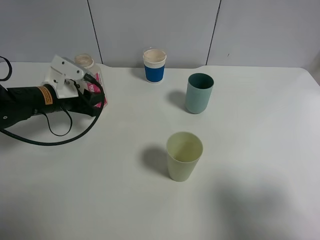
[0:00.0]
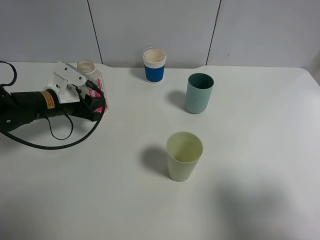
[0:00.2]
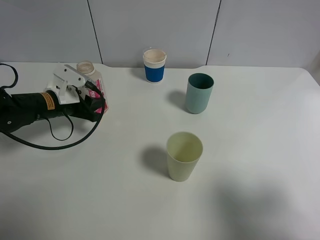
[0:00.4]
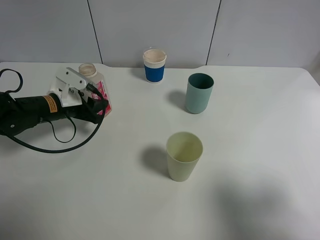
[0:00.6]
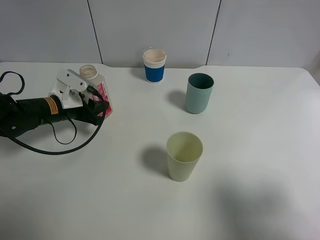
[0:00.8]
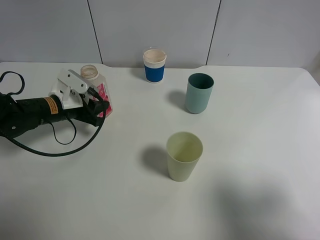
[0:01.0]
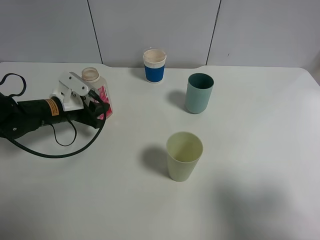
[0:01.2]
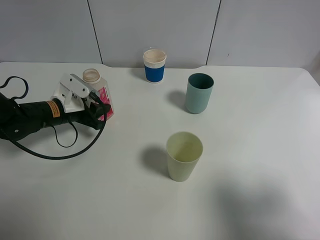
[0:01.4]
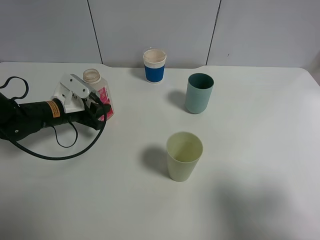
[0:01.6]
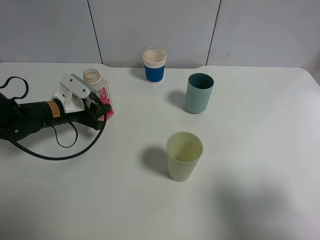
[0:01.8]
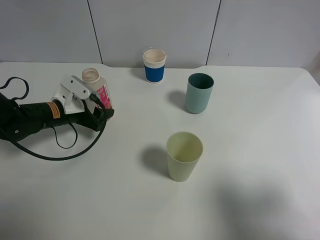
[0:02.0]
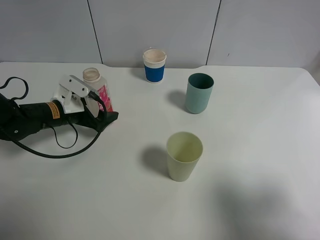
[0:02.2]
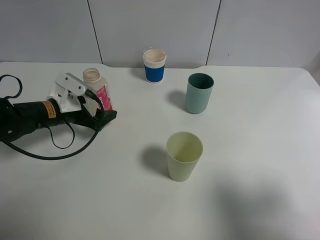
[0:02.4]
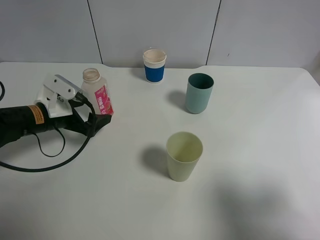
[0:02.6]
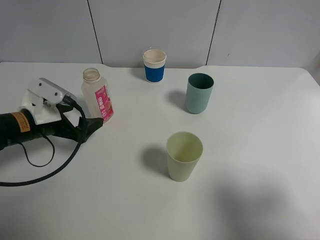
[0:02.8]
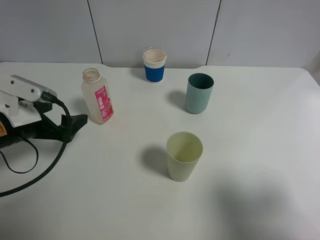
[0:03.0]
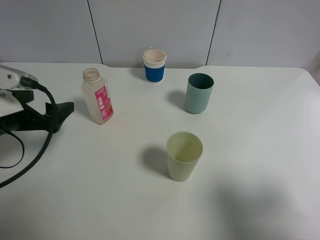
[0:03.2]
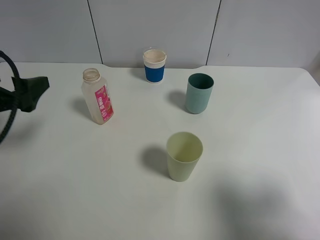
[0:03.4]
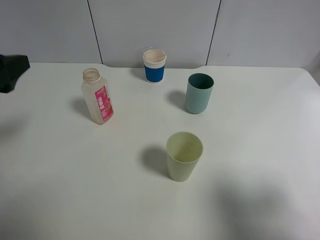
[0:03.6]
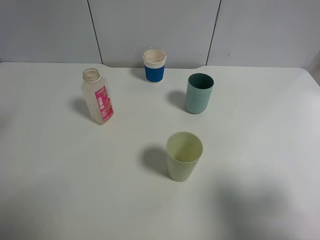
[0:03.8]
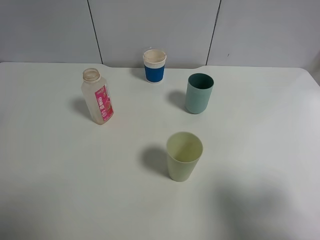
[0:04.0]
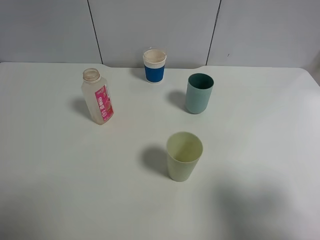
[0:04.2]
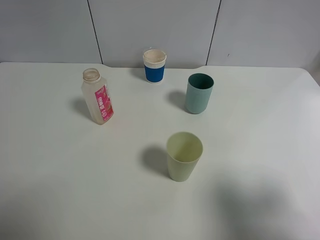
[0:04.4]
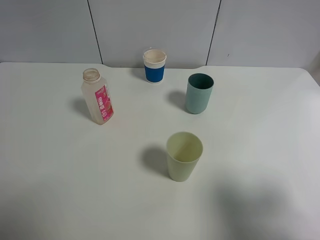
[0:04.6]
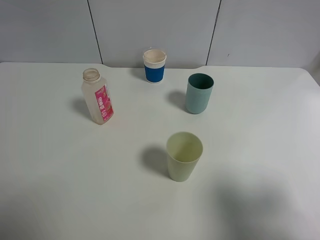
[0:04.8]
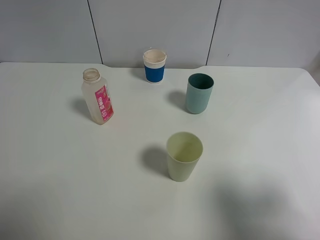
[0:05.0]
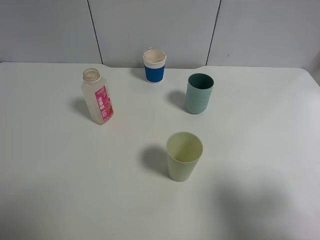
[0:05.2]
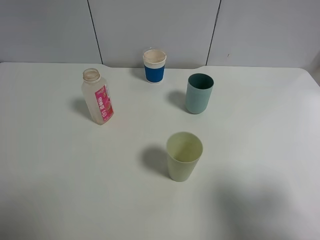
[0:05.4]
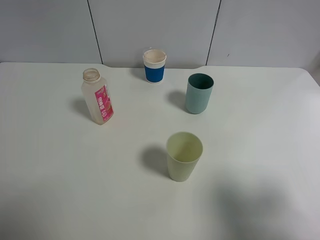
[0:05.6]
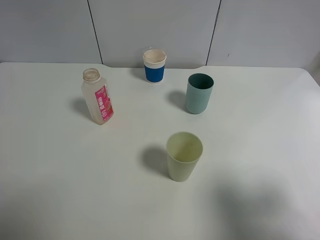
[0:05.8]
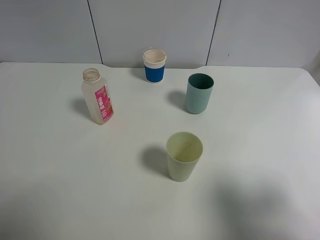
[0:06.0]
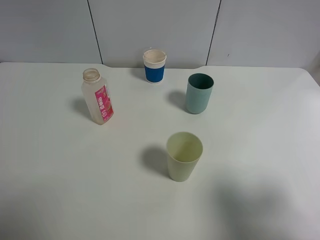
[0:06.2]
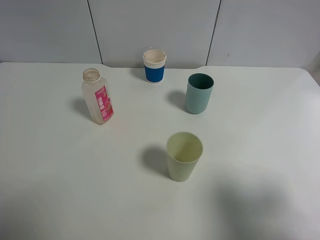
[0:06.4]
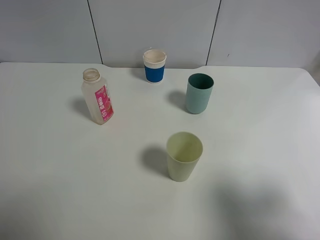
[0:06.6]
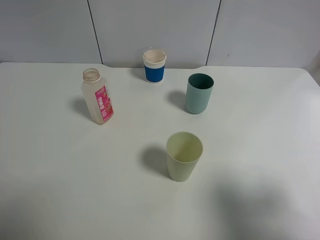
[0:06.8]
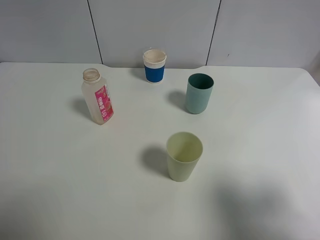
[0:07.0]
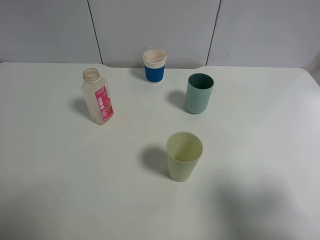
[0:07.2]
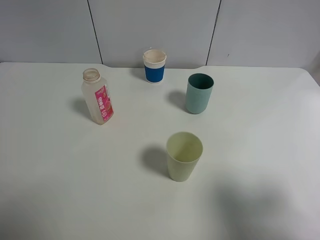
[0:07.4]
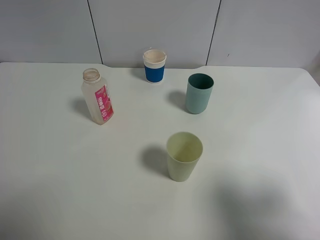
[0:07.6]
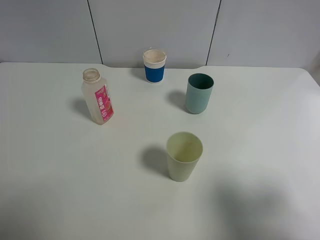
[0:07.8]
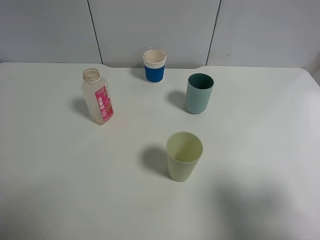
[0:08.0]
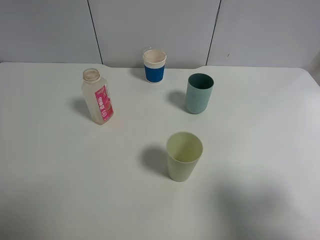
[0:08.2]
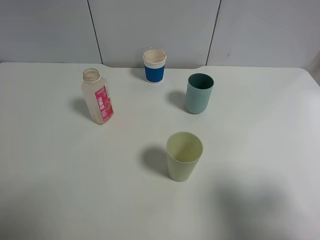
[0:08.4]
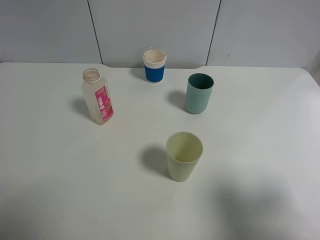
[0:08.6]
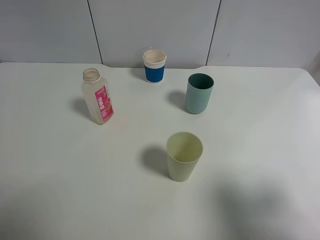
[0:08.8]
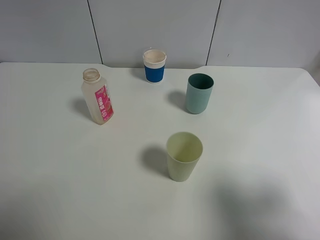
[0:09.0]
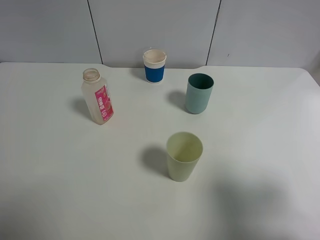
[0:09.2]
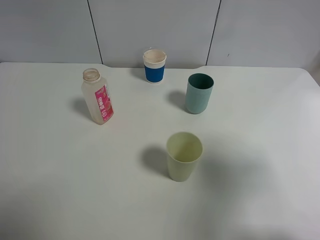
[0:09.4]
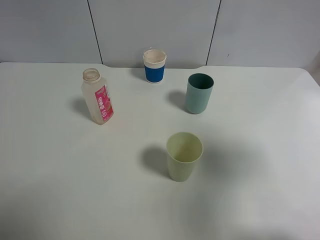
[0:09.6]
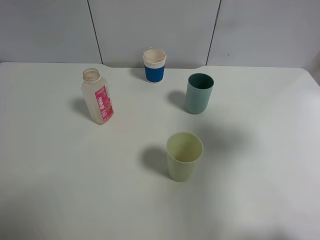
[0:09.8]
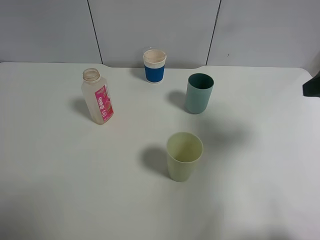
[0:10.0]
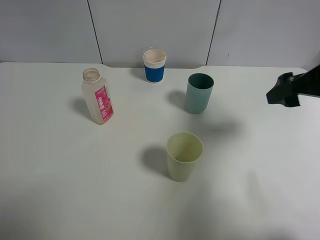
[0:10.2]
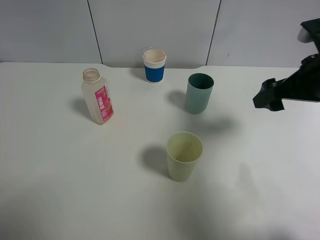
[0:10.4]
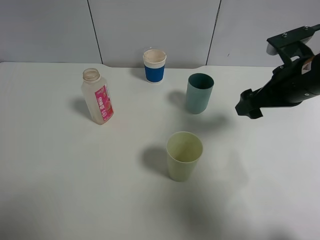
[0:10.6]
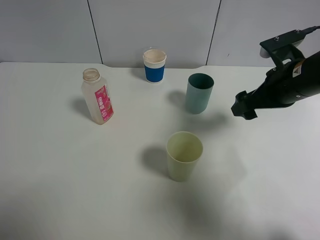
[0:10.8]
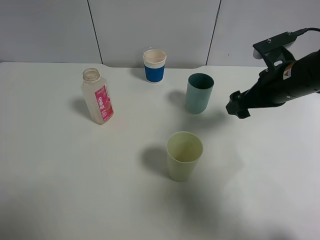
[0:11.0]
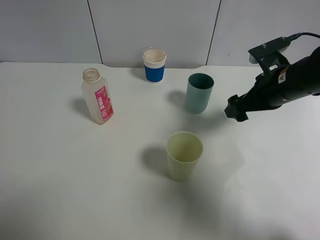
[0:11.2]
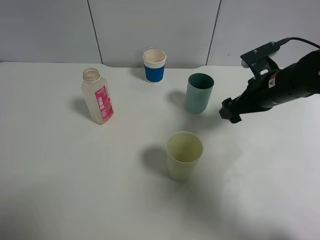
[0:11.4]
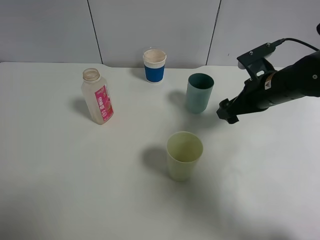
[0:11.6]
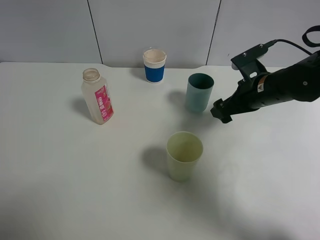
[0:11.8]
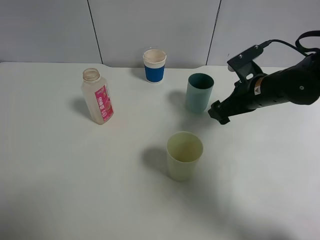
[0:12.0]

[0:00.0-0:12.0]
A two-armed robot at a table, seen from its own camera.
Task of the whole recording: use a clamp to hold the bottle of the drink, pour the beverage into a random cup, then clamp the cup containing the drink and pour the drink into another random cup.
Step, 0:00.0 to 0:02.0: Place the drink bottle on the table with left gripper.
0:00.0 to 0:01.6: The grippers make only small movements.
0:01.6 to 0:03.0: The left gripper goes some 15 cm backward and upward, and opens up.
0:03.0 to 0:04.4: The left gripper moves upward and backward, some 25 cm.
0:06.0 to 0:09.0: Both grippers stay about where they are.
0:09.0 to 0:10.4: The right gripper shifts about 25 cm forward.
0:10.4 to 0:12.0: The right gripper heads downward and forward, covering about 10 cm.

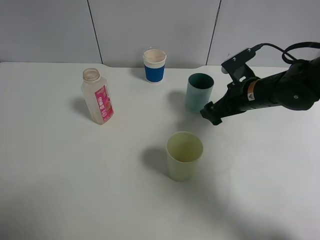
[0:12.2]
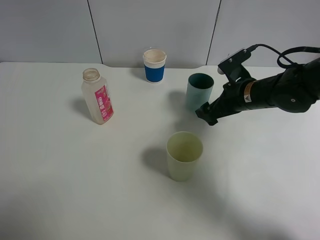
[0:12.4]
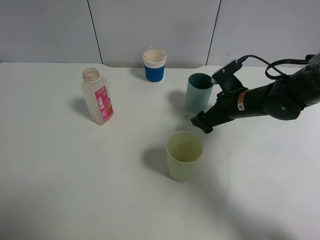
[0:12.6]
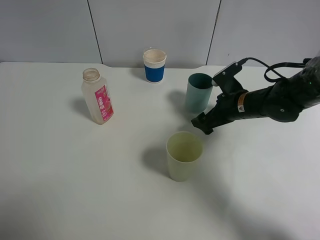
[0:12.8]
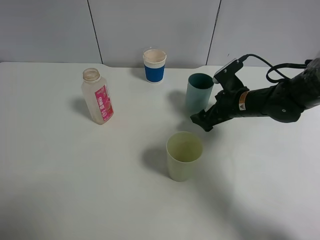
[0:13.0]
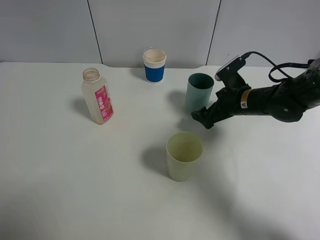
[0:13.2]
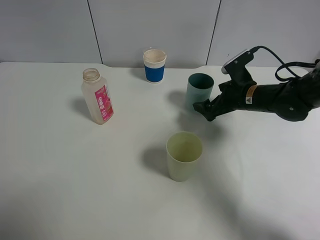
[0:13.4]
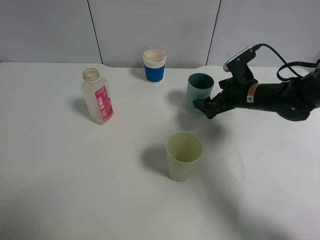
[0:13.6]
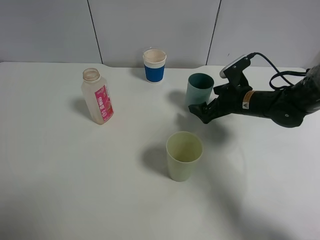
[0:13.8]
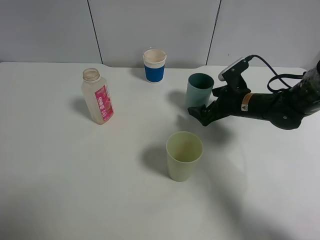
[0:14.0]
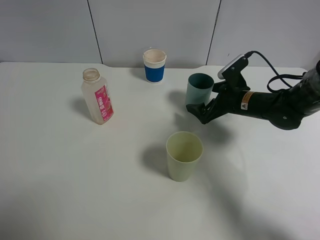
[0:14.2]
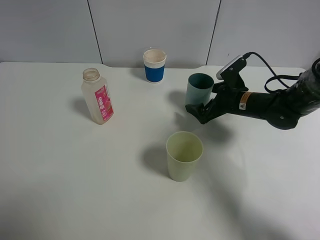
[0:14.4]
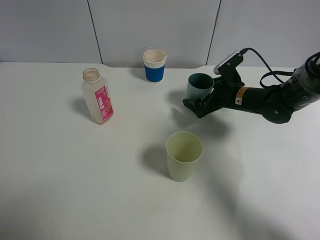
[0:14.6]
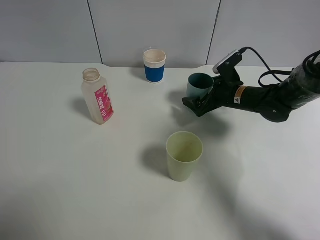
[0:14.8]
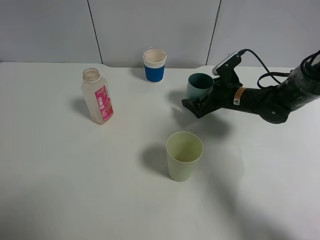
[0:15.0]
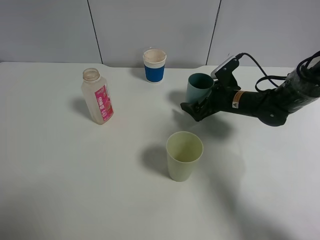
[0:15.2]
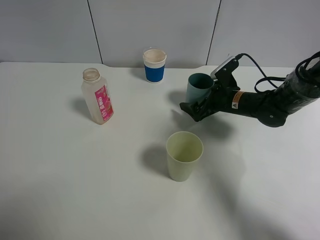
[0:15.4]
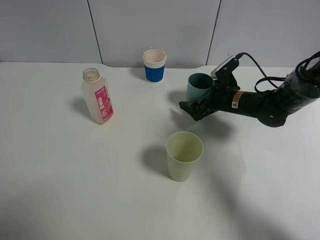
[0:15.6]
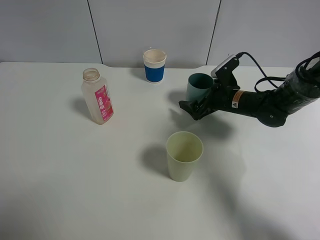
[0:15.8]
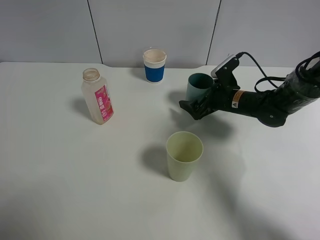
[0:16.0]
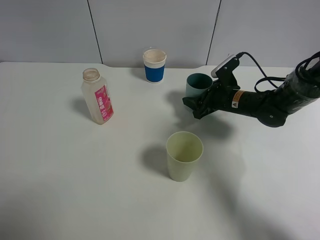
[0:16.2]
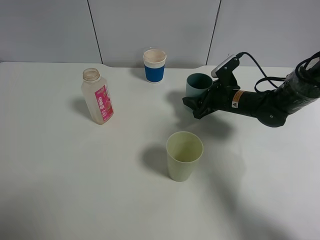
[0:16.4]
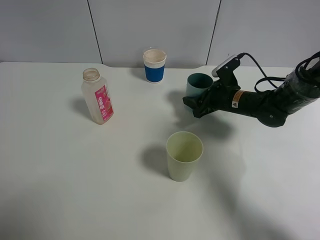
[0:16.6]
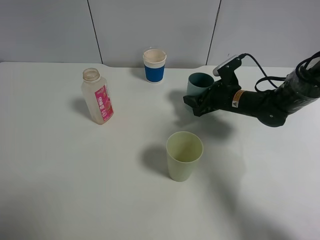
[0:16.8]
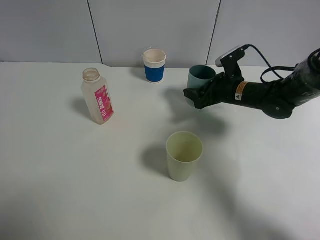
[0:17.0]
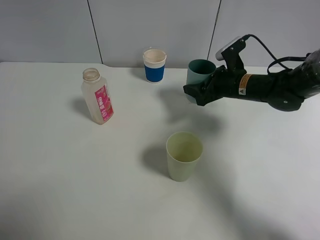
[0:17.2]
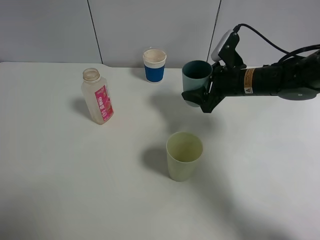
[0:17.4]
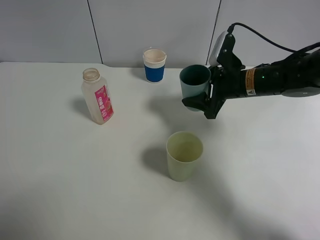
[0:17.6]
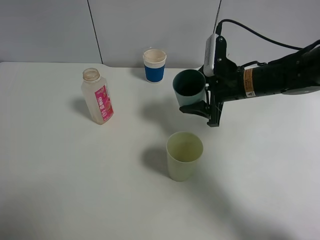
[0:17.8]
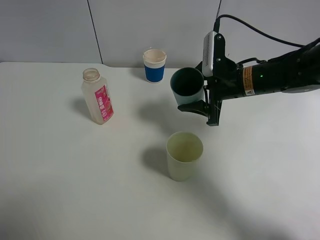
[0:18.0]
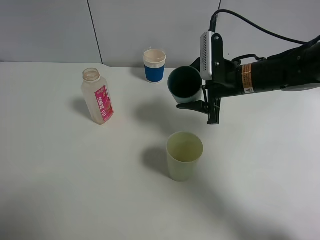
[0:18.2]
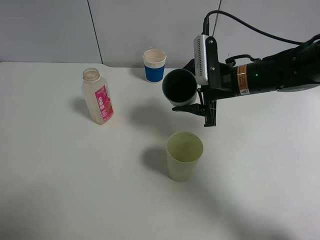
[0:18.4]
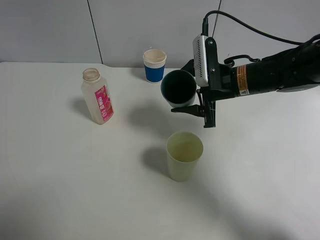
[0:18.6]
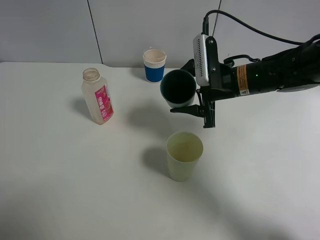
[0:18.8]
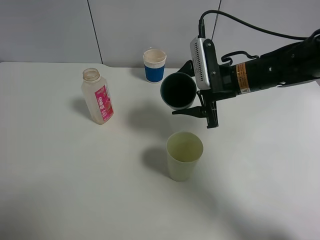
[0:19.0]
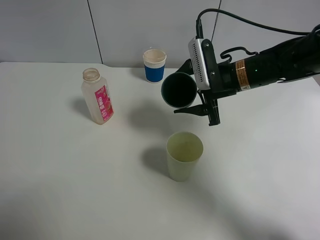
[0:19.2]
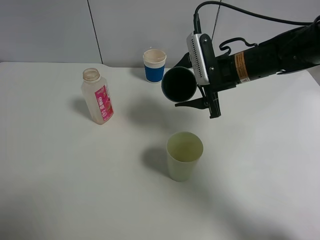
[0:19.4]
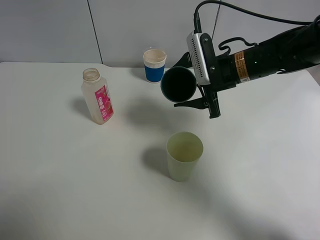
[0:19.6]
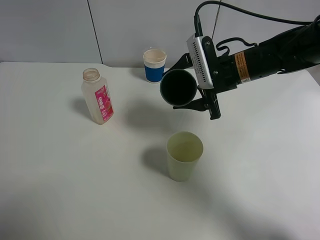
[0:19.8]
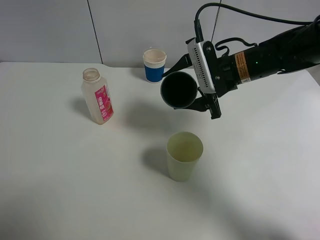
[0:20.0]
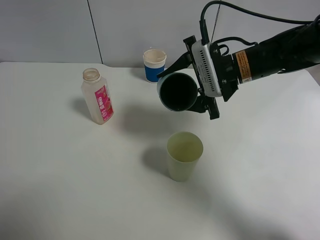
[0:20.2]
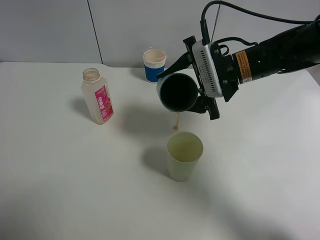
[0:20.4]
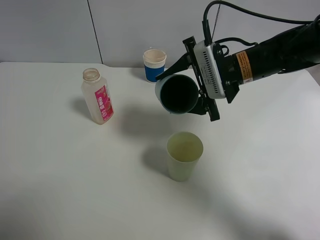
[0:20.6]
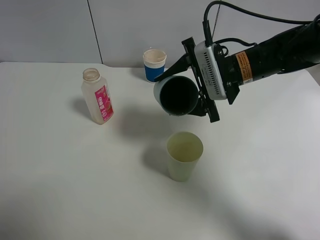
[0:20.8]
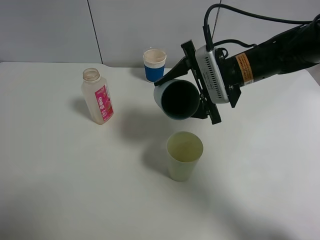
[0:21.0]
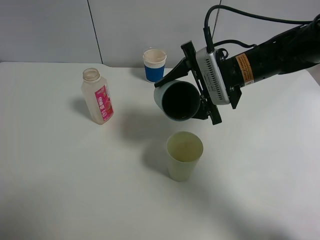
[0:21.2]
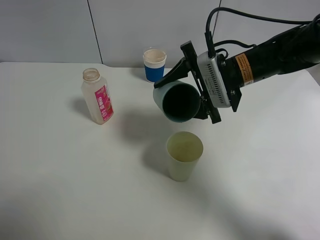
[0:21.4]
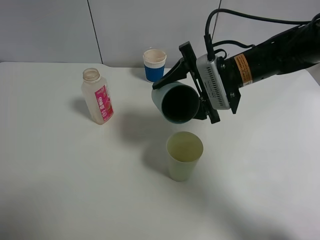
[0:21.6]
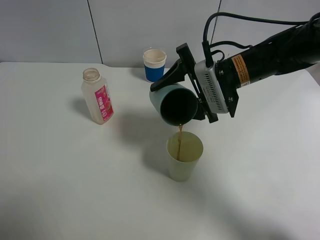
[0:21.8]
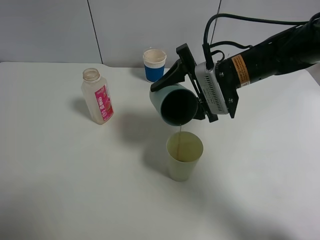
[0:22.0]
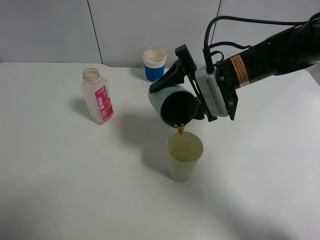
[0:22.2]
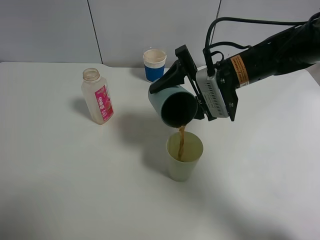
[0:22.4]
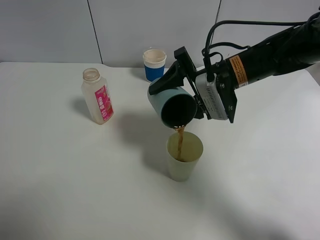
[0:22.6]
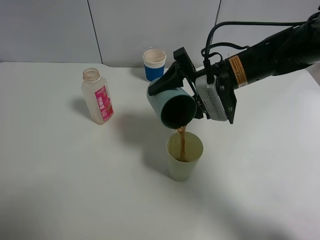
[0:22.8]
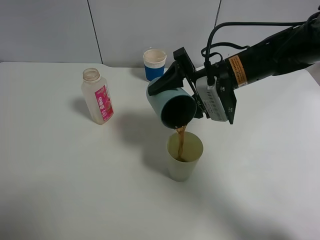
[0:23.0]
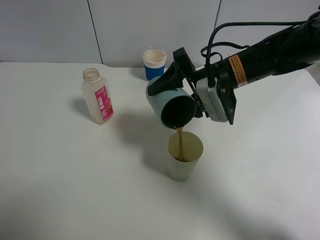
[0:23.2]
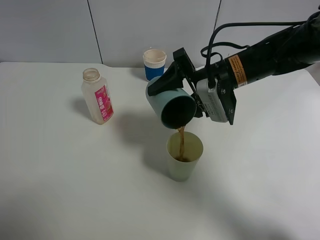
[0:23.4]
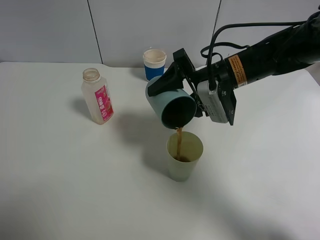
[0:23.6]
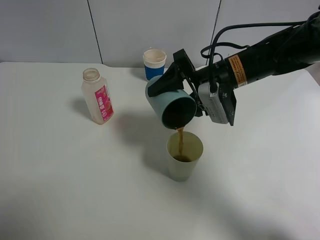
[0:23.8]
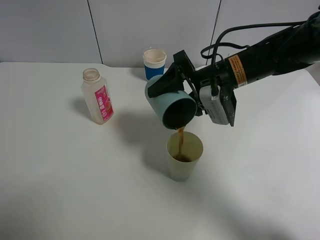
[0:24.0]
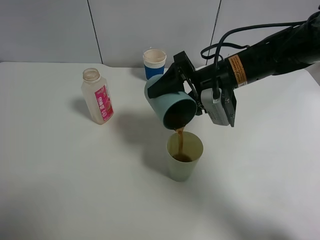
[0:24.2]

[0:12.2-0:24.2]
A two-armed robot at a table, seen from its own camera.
Task of the whole recording: use a clamp to hold the bottle of the drink, pour the beverage into a random cup, then clamp the cup containing the drink and pour the drink into another random cup.
Step, 0:12.2 to 0:16.8: Pick up the blue plastic cup with right gripper.
0:12.2 to 0:13.8: The right gripper shifts by some 5 cm.
0:13.8 to 0:15.2: The grippers move only a little.
0:15.2 to 0:16.6: The right gripper closes.
0:16.6 to 0:18.2: The right gripper heads upward, covering roughly 10 cm.
0:19.8 to 0:21.2: There are only small adjustments of the grippers.
0:21.2 to 0:22.6: There are only small adjustments of the grippers.
0:22.6 to 0:24.2: The grippers make only small movements.
